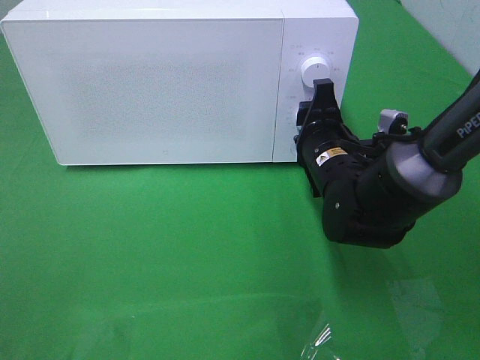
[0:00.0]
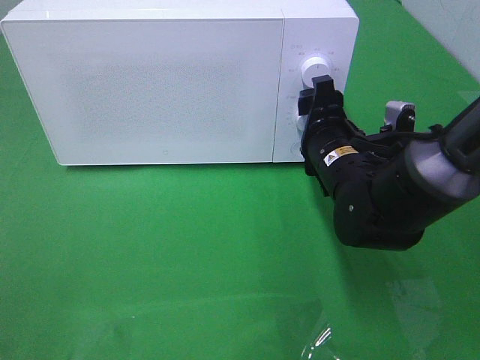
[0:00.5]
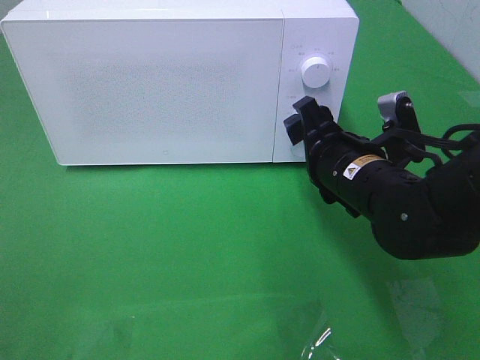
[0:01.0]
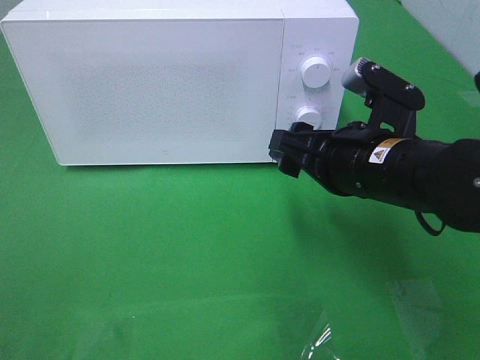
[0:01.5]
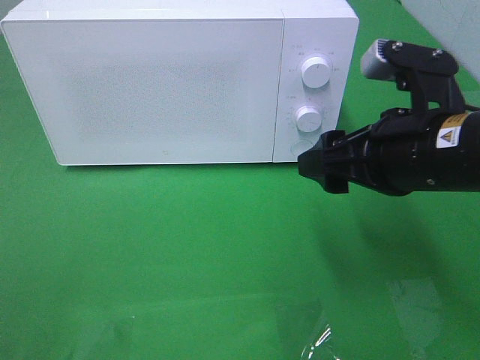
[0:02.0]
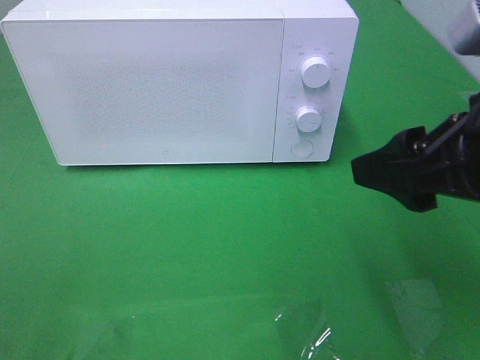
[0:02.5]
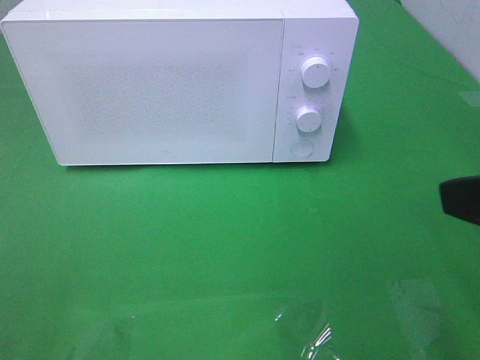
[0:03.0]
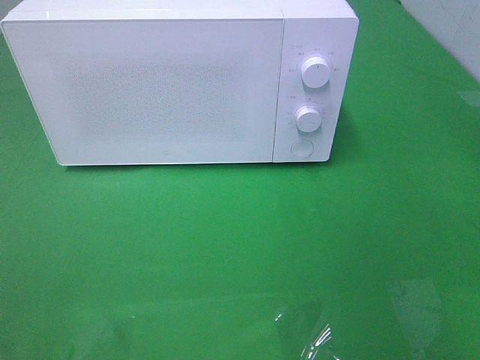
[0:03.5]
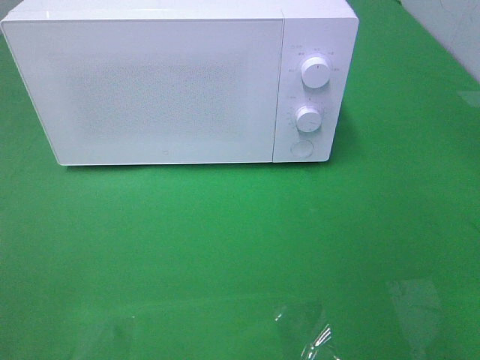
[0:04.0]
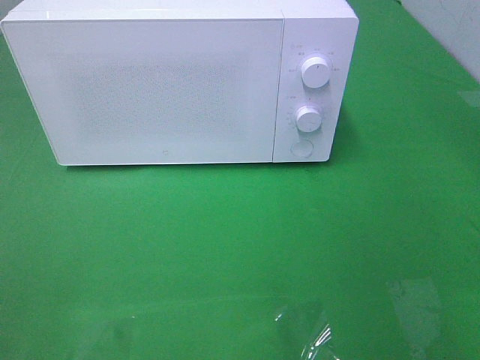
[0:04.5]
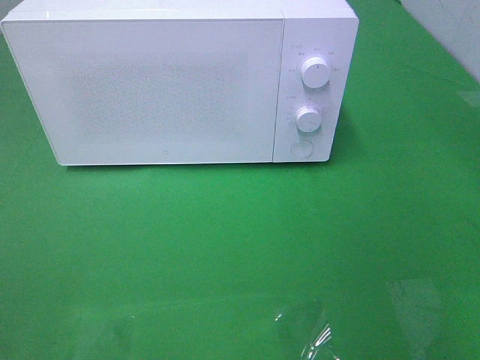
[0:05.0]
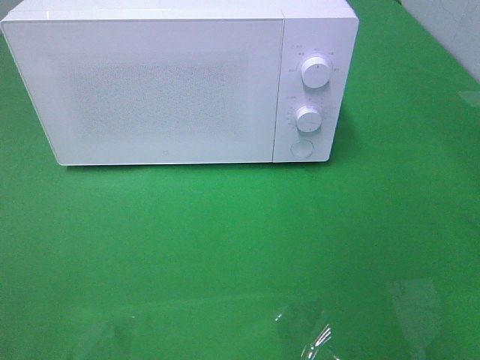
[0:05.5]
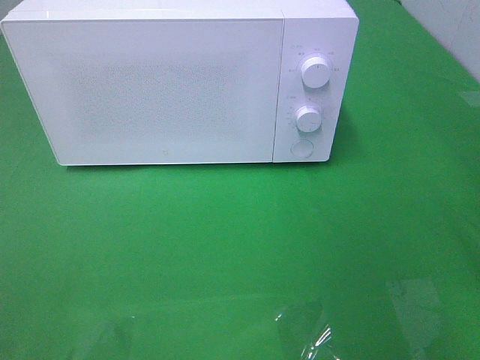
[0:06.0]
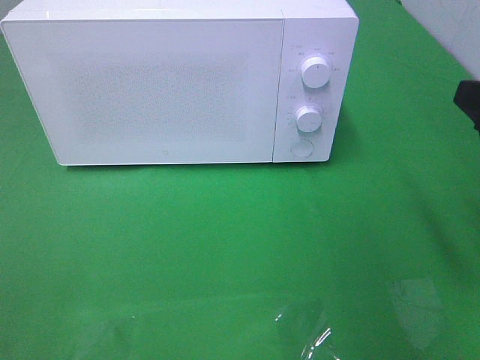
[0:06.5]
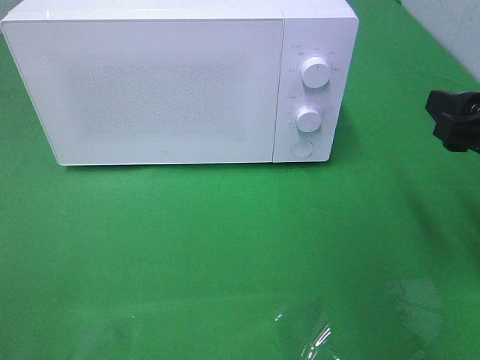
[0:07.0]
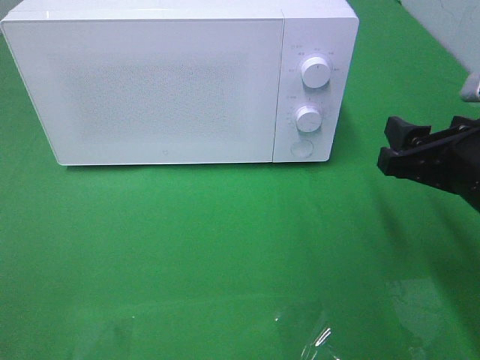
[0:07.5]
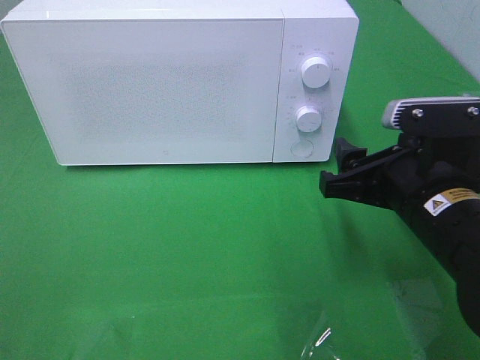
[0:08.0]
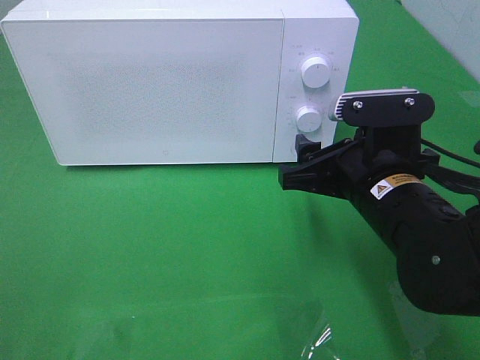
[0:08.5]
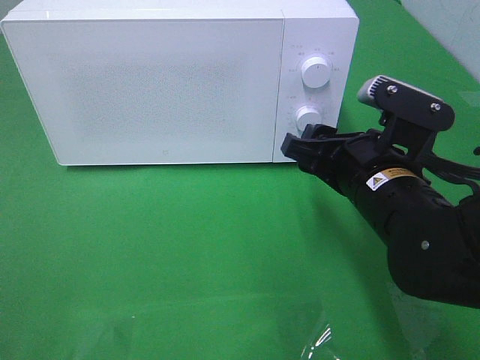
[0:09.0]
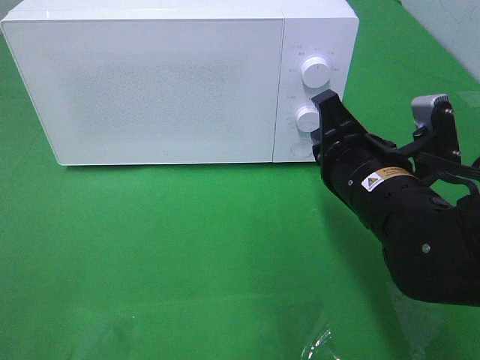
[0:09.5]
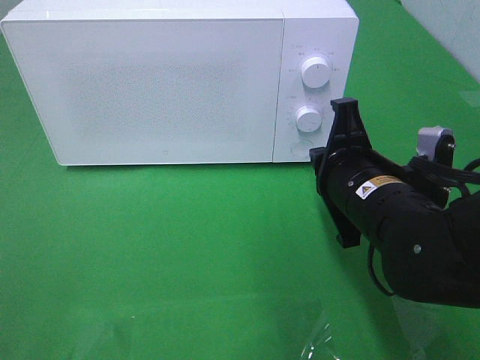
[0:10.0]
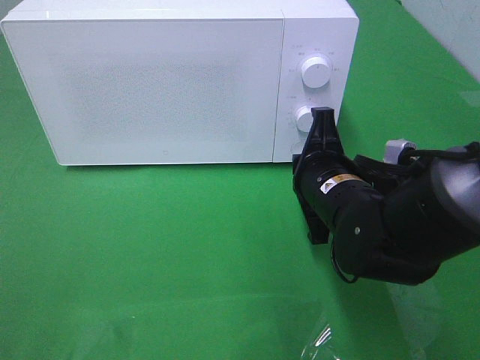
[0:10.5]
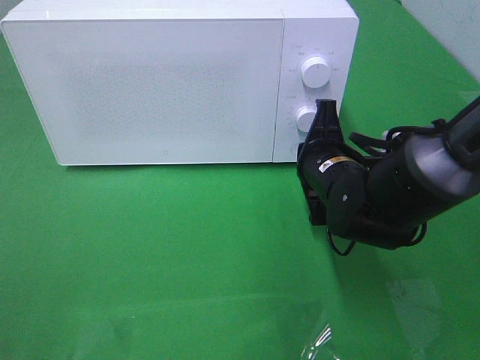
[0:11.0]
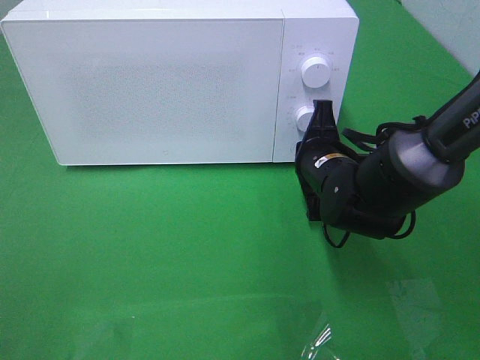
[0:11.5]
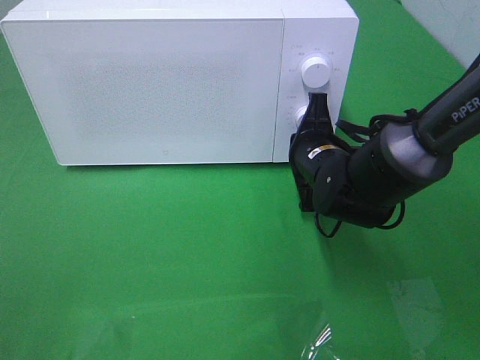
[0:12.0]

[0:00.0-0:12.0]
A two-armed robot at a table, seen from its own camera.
Task of the whole recording: Heat the burger.
0.0 to 2.0 s: The right gripper goes some 15 cm upward and backward, and opens.
2.0 to 4.0 s: The right gripper is displaced backward and to the right by approximately 25 cm.
6.0 to 8.0 s: The right gripper shifts roughly 20 cm downward, to the left and forward.
8.0 to 10.0 s: The right gripper ends up approximately 5 cm from where it was, and closes its fingers.
10.0 to 12.0 s: The right gripper shifts some 10 cm forward.

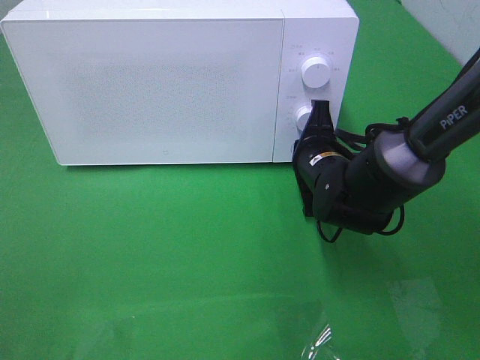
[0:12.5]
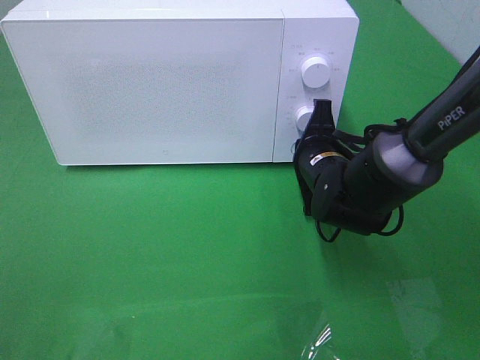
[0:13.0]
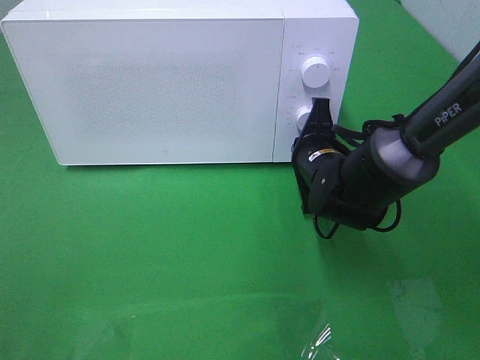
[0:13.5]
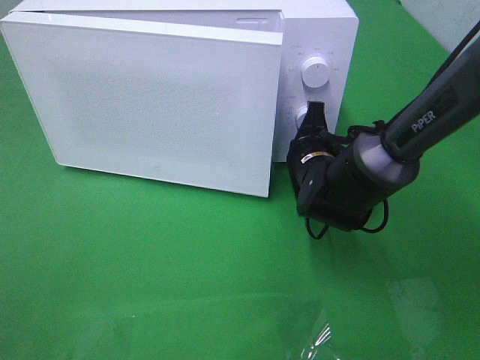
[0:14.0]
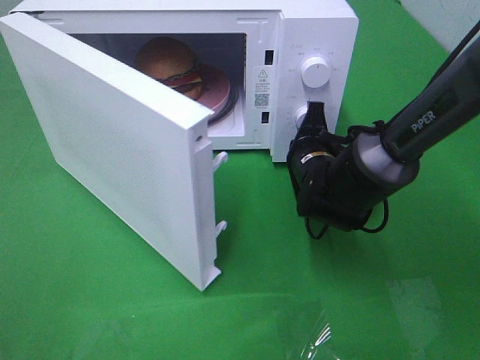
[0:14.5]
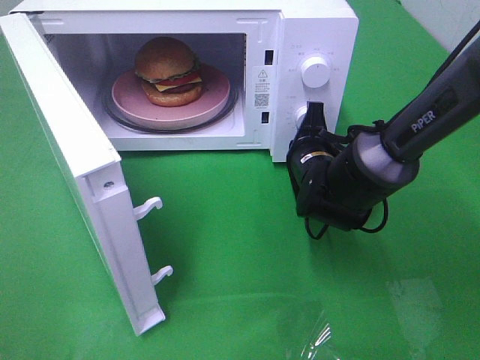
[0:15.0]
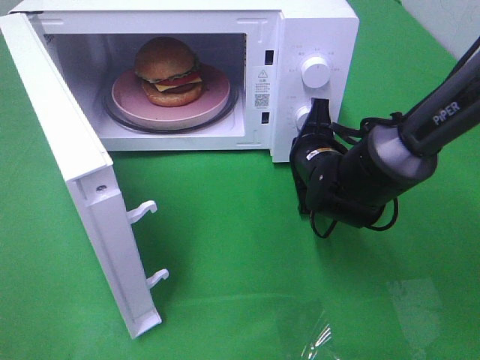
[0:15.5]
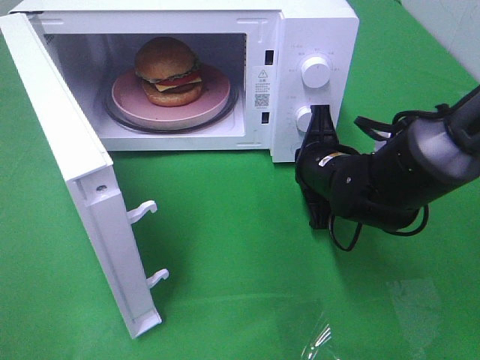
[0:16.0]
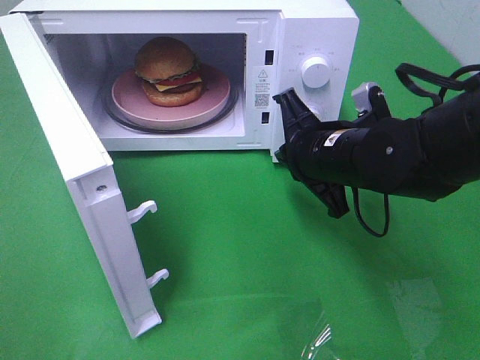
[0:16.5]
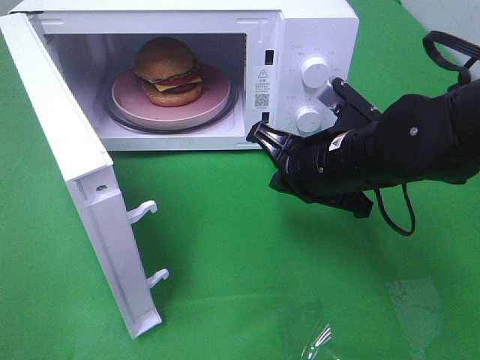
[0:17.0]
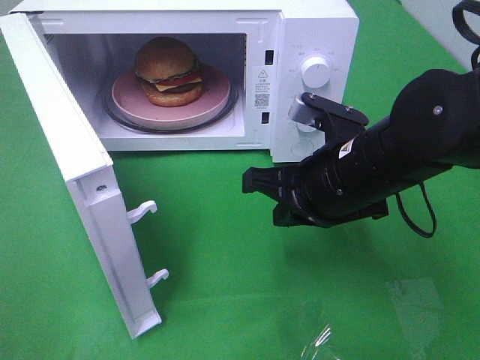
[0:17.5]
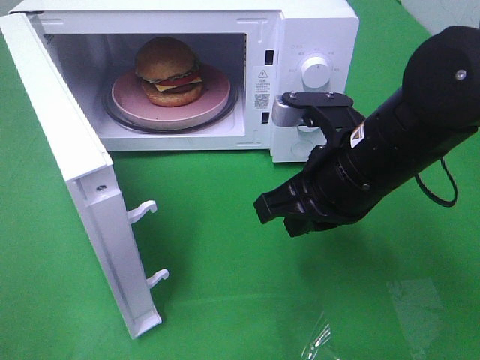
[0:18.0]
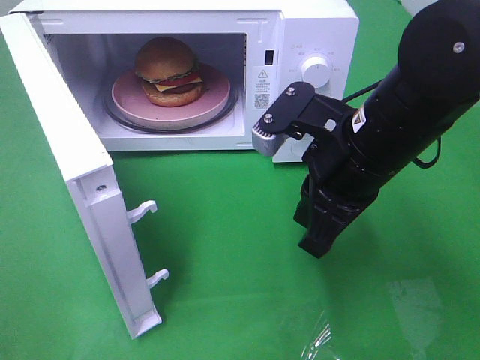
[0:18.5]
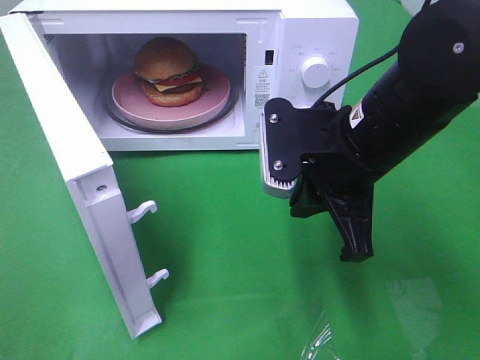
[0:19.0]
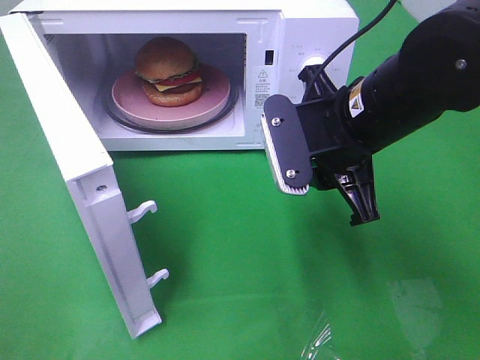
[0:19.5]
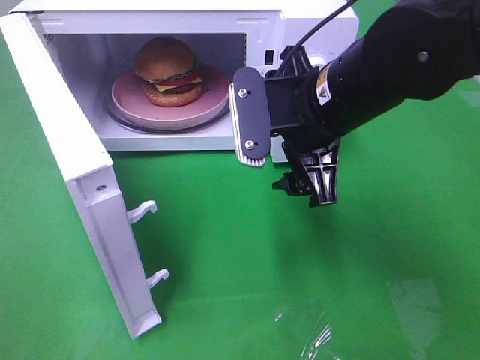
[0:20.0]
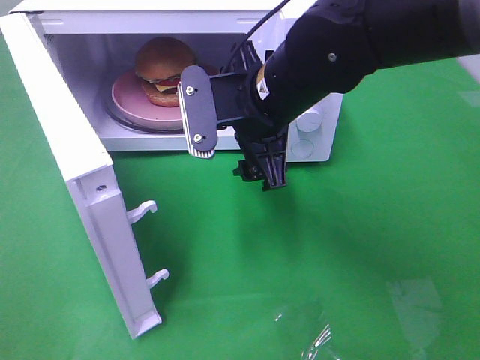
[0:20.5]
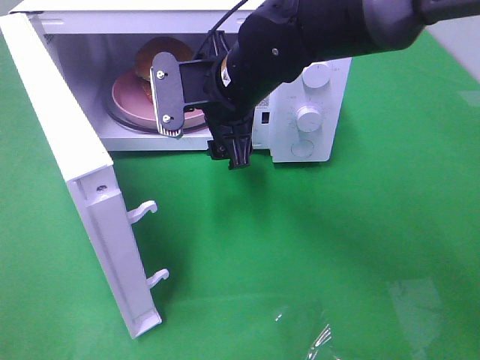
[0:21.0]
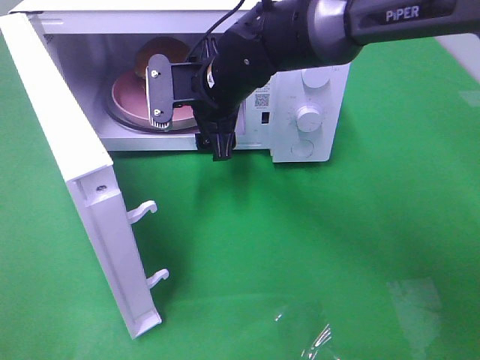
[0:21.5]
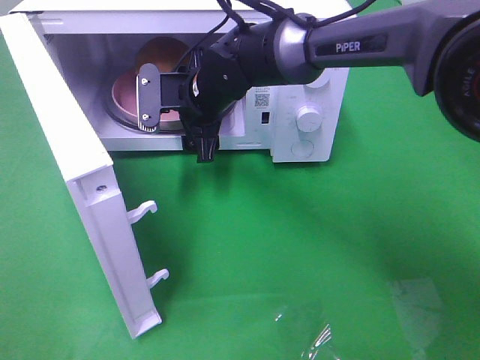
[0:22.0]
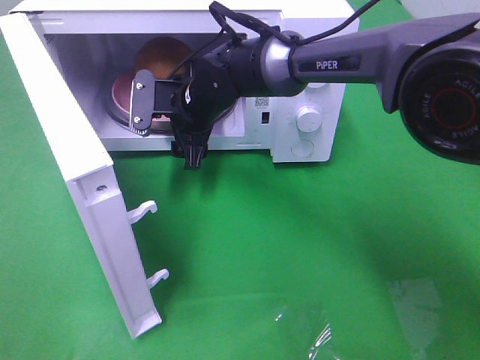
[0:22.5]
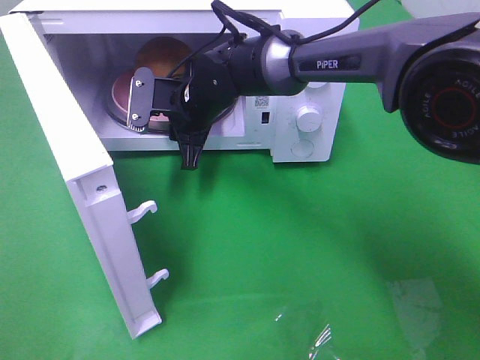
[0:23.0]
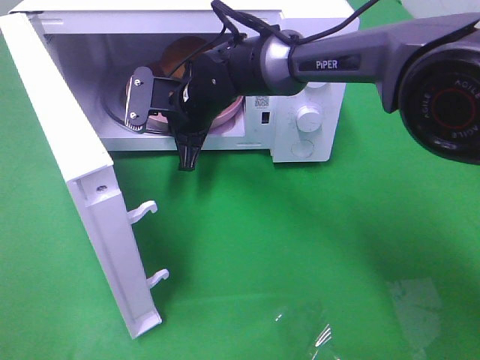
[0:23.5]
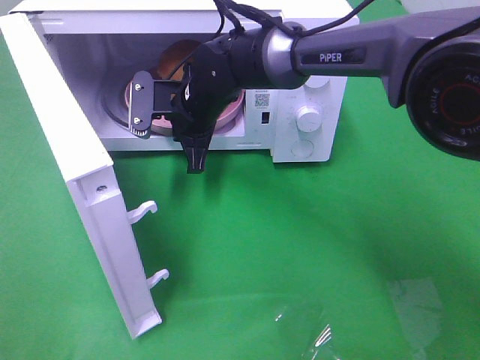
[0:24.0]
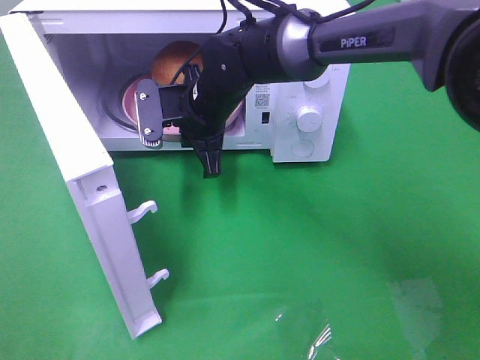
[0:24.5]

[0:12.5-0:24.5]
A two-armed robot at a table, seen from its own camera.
Task of the whole recording: Heat the burger.
Step, 12.5 to 16.0 s: Right hand: press the switch.
Step, 16.5 to 23.5 s: Right hand: grab the plate with the hamburger.
14.5 to 16.5 s: The right gripper shifts roughly 10 cm upward and backward.
16.5 to 18.5 s: The right gripper heads upward, covering about 5 cm.
18.5 to 20.5 s: The right gripper travels to the left and forward by roughly 10 cm, and opens its fingers.
20.5 to 22.5 s: The right gripper travels forward, downward and to the left by about 15 cm.
22.5 to 24.5 s: The right gripper closes its fingers.

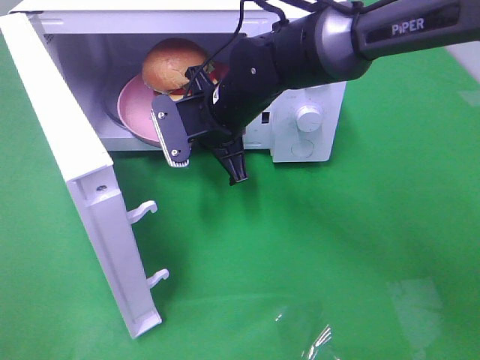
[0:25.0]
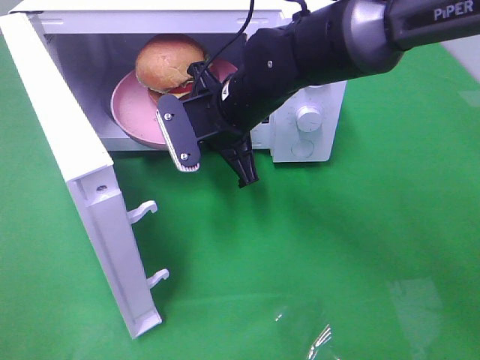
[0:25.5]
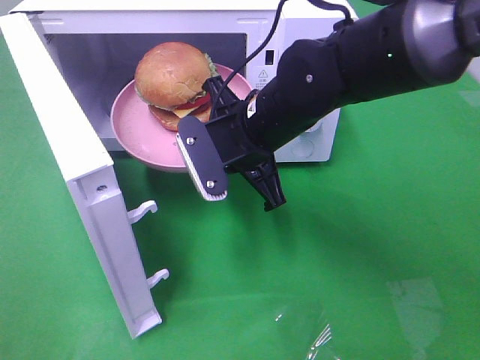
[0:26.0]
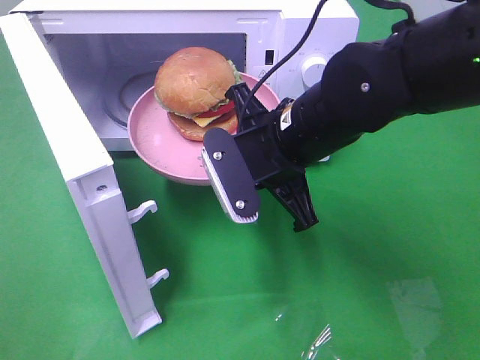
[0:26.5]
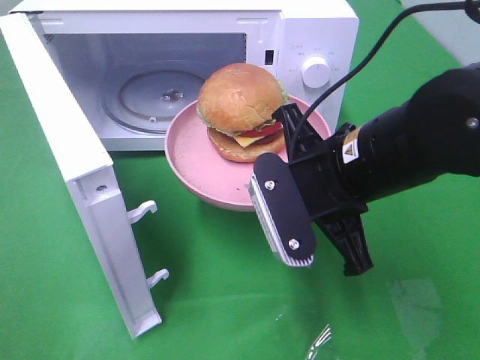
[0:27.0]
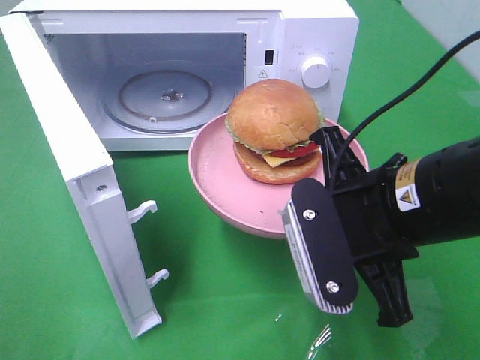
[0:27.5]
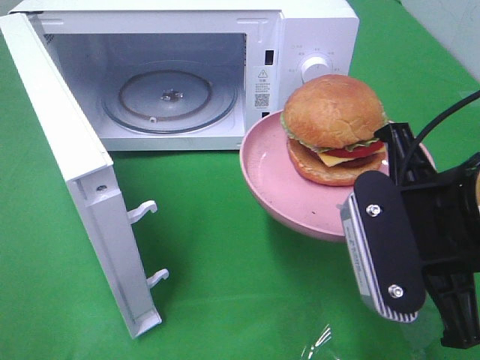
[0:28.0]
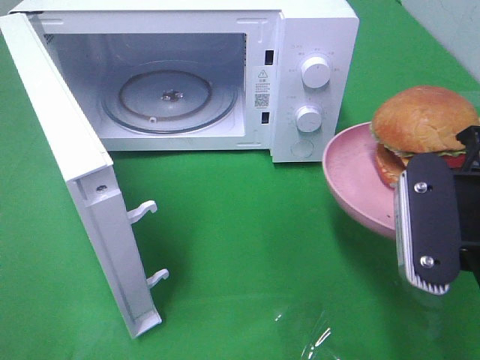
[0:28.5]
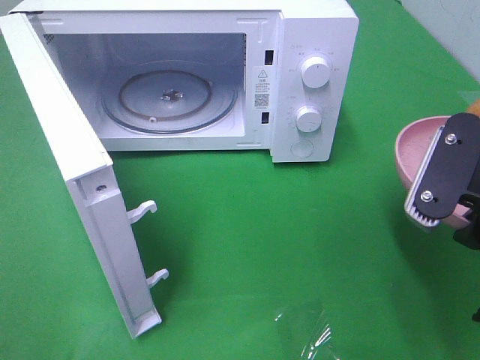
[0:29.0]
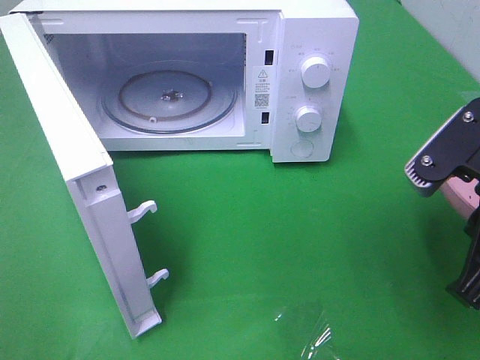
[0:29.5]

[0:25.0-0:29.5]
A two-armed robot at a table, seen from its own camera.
Task of the whole recording: Heat the burger.
25.0 to 27.0 s: The right gripper goes roughly 20 cm backward and to the right.
27.0 to 29.5 s: The right gripper heads to the right and backward, covering about 15 cm.
